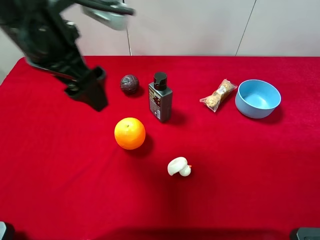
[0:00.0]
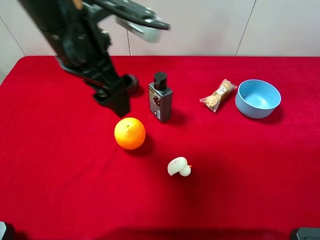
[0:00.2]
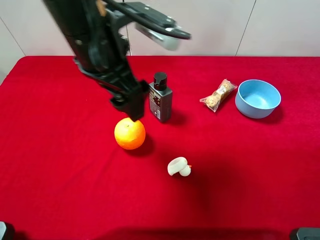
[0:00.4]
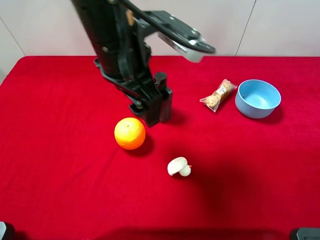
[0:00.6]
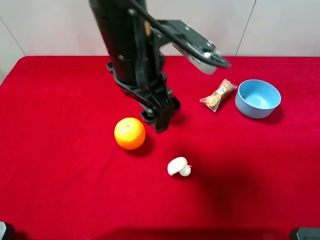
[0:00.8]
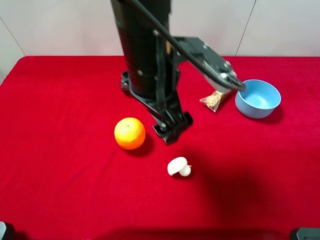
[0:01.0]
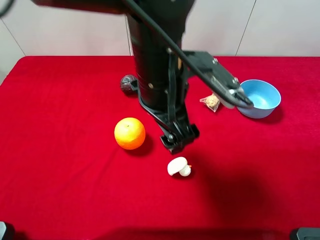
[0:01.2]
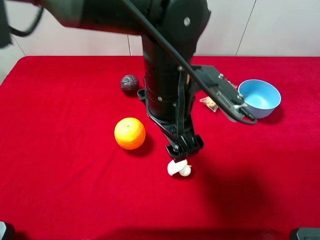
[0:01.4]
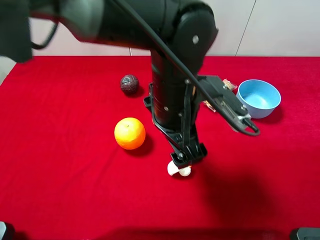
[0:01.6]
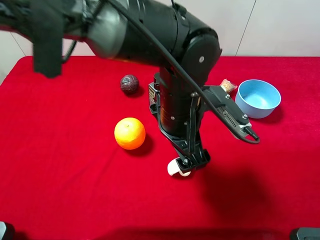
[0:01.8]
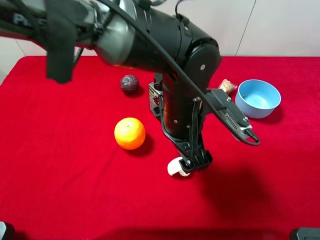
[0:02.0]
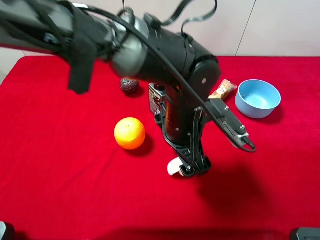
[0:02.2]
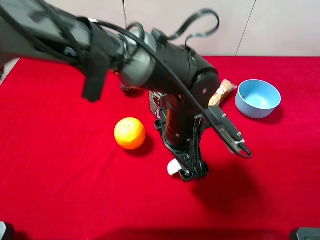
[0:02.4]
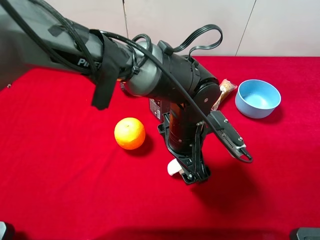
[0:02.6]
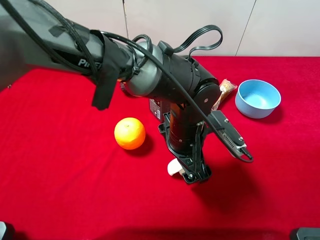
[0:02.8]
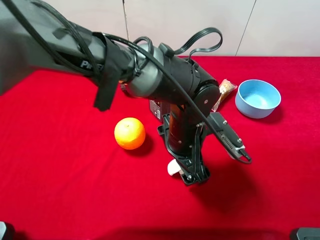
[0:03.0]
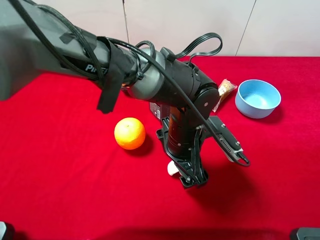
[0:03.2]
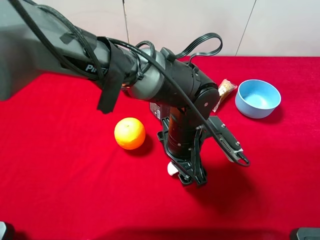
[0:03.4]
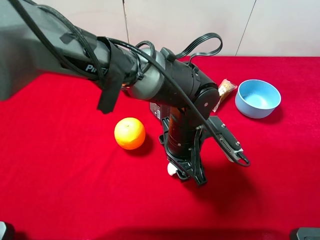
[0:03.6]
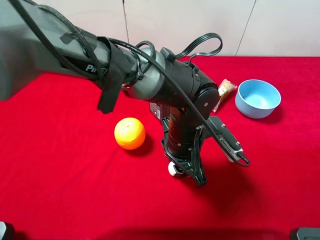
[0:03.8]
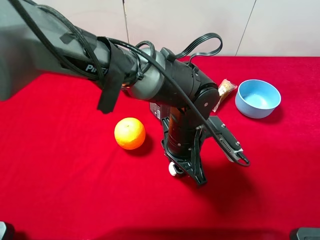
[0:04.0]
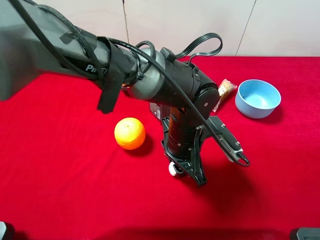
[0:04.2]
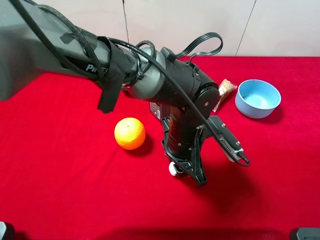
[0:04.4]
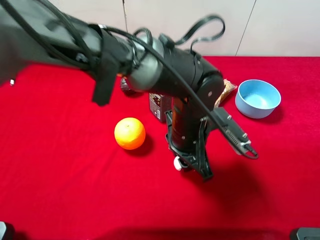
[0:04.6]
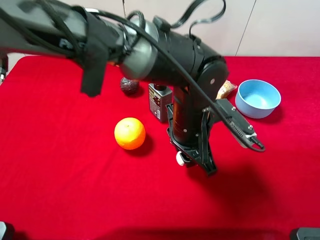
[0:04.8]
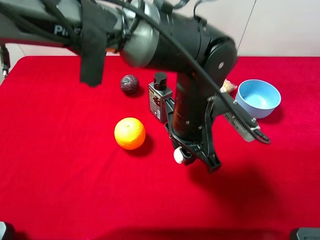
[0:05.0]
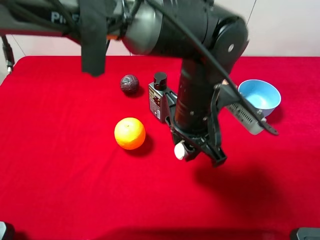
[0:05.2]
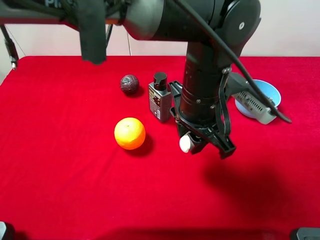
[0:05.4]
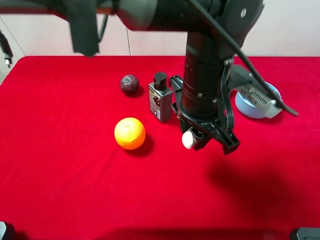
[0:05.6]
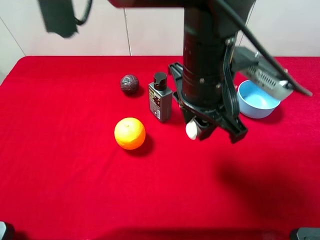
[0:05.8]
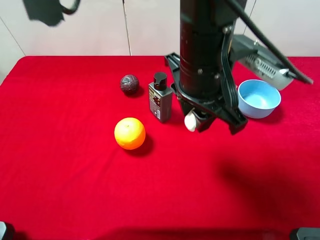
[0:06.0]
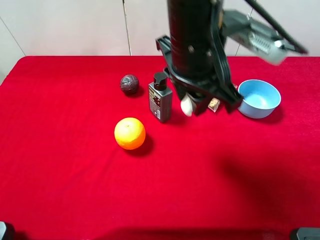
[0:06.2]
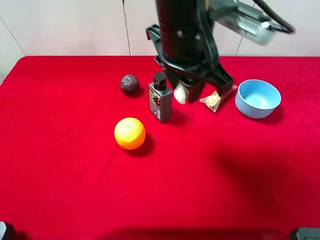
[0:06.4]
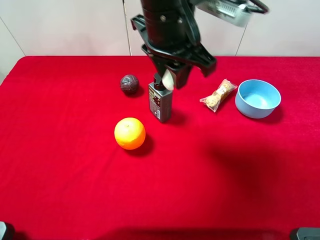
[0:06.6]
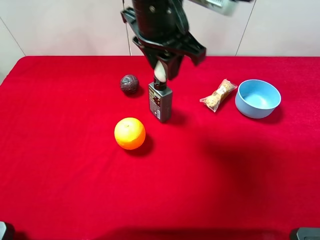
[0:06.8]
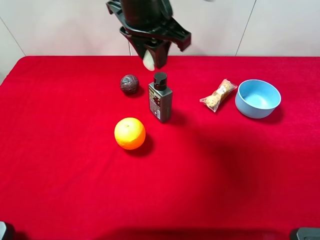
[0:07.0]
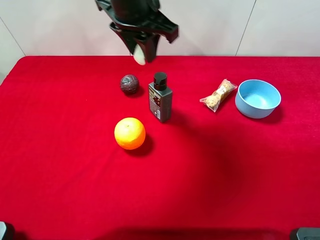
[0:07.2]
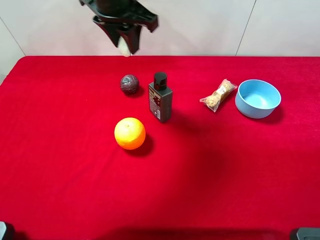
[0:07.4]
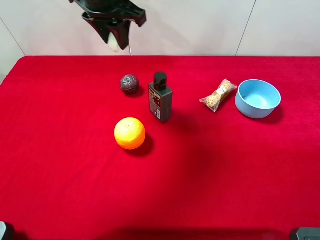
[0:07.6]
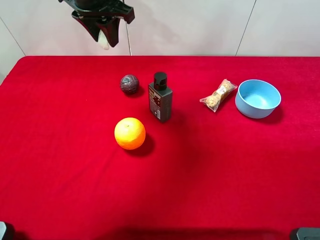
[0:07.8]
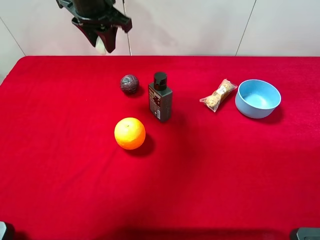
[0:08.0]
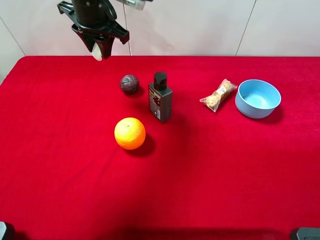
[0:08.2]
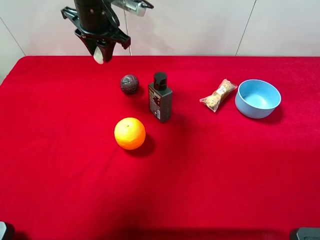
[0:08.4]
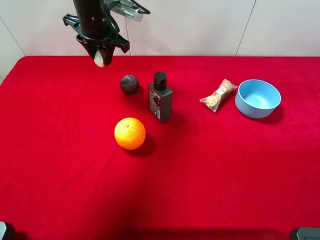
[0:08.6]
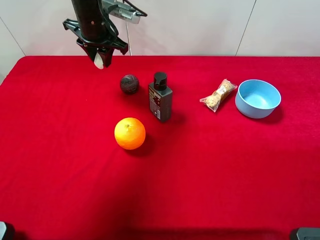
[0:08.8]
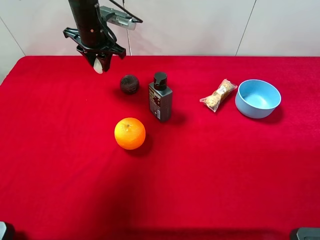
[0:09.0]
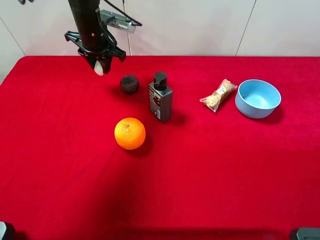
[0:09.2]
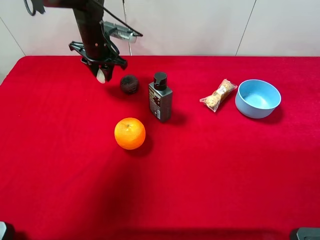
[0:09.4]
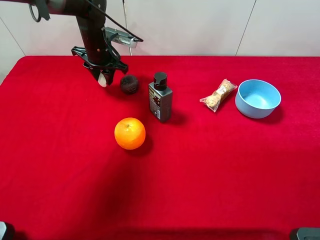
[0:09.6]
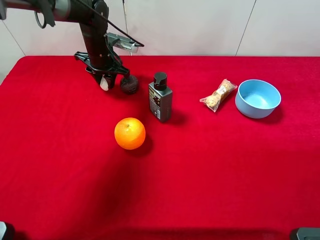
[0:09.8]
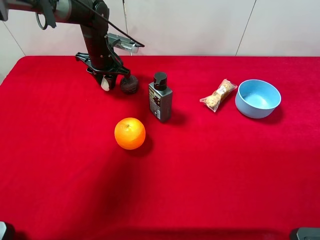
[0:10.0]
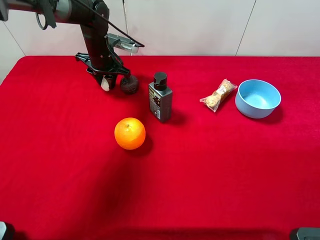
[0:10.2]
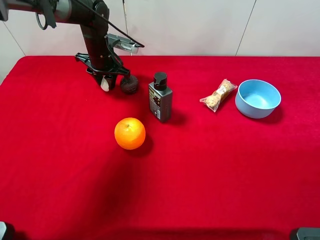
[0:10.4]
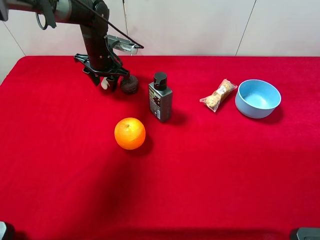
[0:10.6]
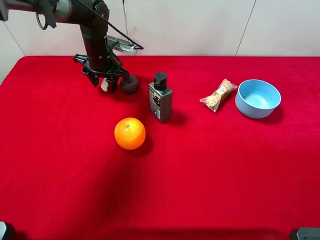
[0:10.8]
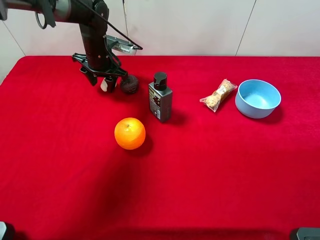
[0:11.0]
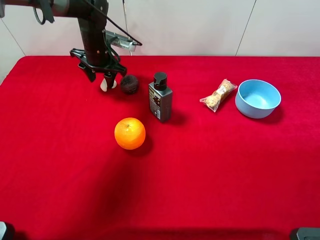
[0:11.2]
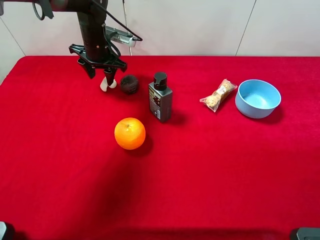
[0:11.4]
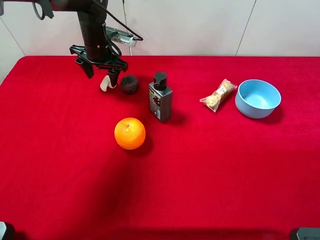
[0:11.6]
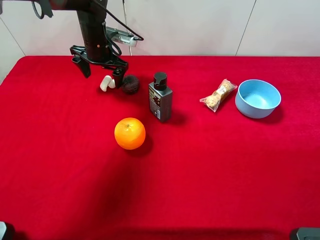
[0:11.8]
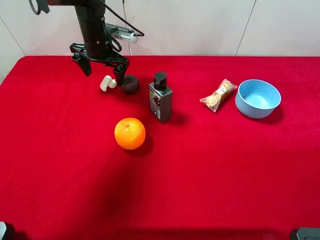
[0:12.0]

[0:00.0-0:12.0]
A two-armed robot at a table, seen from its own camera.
Task of the whole recording: the gripper move the object.
Step, 0:00.0 to 0:03.8: Grasp the white duck with the left gripper.
0:00.0 to 0:01.6: The left gripper goes approximately 20 cm to the right and downward.
0:01.6 to 0:03.0: The left gripper travels downward by some 10 cm.
0:03.0 to 0:04.4: The left gripper closes.
0:04.4 to 0:06.0: The left gripper shifts some 15 cm upward.
0:06.0 to 0:07.6: The left gripper goes roughly 20 cm to the left and forward.
0:07.6 to 0:09.0: The left gripper shifts roughly 15 cm downward, forward and to the left.
0:09.0 to 0:10.4: The left gripper heads downward, covering some 5 cm.
0:10.4 to 0:12.0: The left gripper opens its fingers.

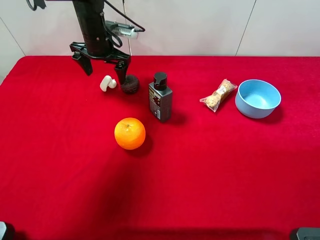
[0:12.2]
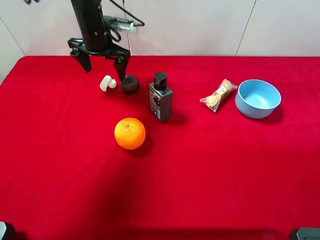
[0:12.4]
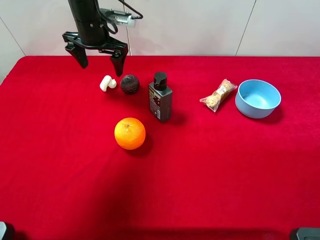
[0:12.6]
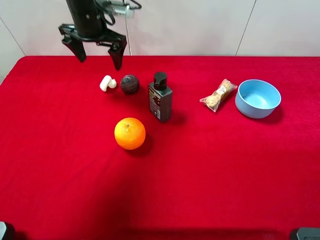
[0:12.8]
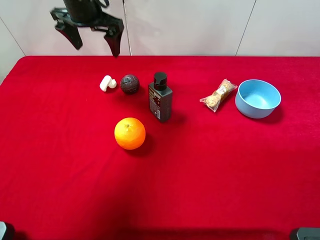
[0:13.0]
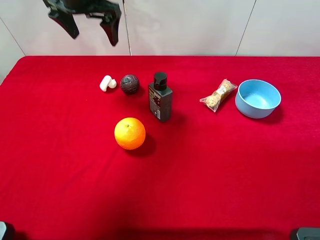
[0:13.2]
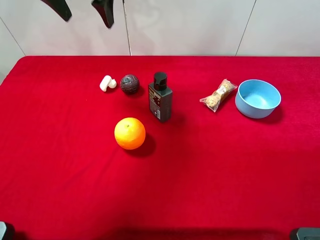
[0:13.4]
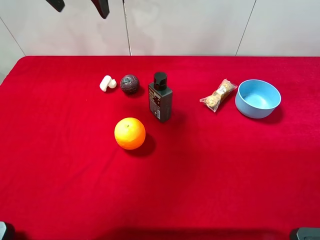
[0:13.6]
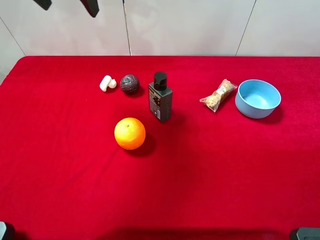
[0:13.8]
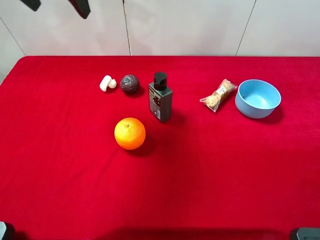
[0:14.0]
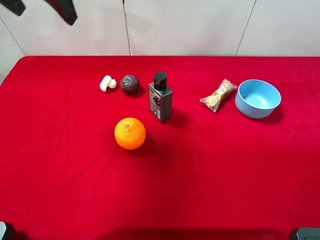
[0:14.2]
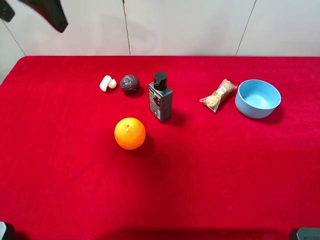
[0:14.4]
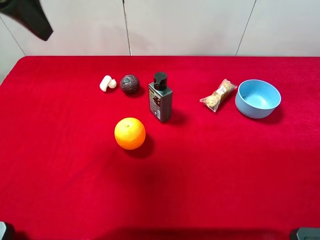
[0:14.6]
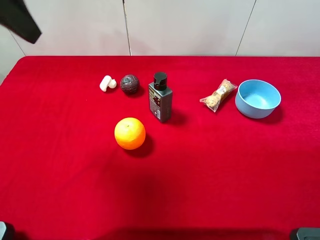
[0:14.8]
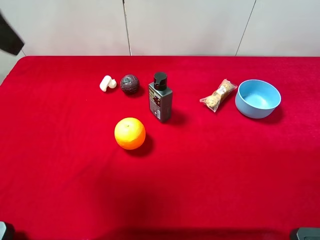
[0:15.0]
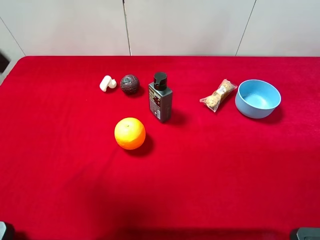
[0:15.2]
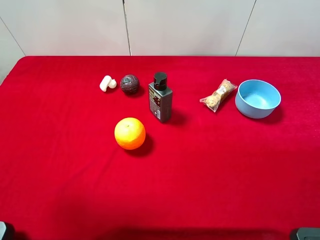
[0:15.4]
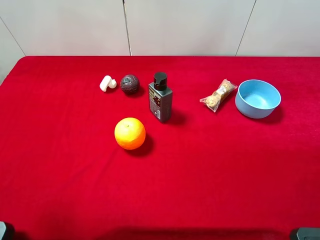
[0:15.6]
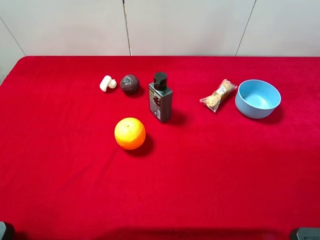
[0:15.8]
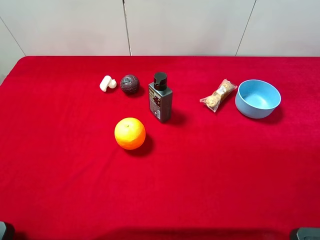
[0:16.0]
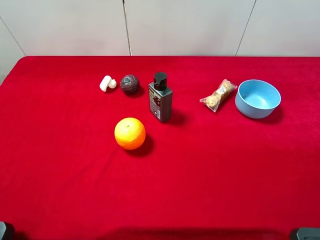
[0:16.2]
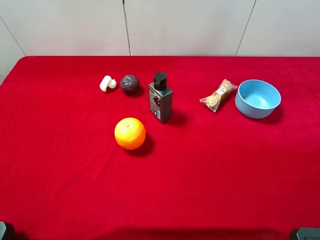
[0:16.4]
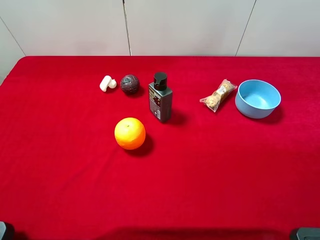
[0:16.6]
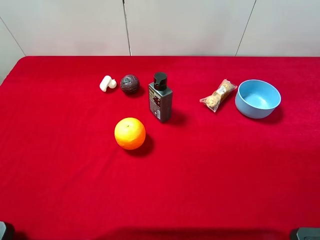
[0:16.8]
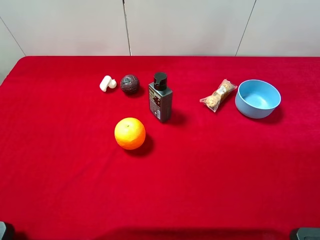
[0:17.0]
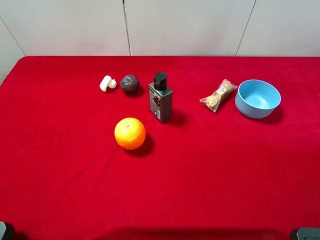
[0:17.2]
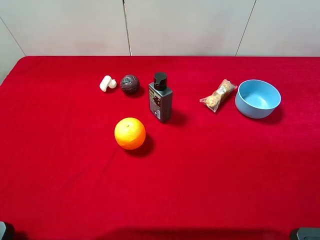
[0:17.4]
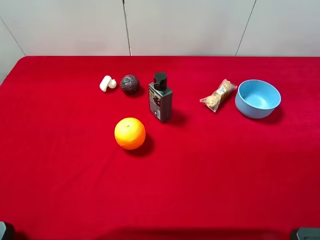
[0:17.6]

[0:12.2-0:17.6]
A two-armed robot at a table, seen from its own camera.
Task of the whole recording: the gripper move the object.
0:12.2 to 0:13.6: The left gripper shifts about 20 cm upward.
0:13.6 to 0:15.0: The left gripper goes approximately 20 cm backward.
0:15.0 to 0:16.2: The left gripper moves backward and downward, some 20 cm.

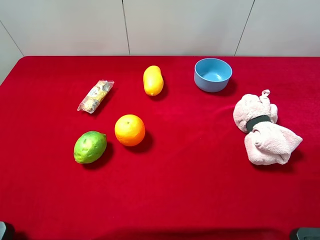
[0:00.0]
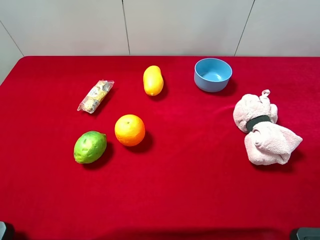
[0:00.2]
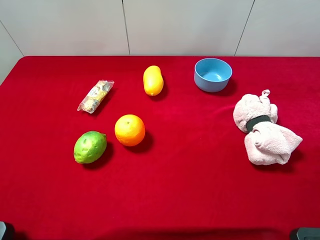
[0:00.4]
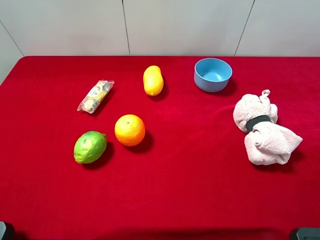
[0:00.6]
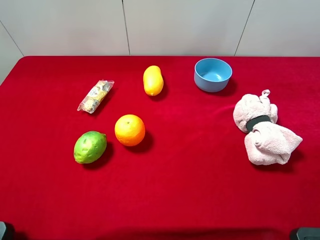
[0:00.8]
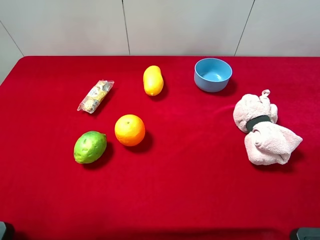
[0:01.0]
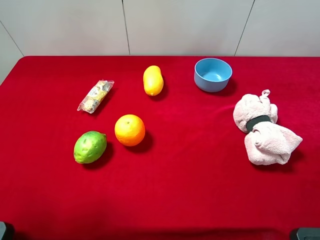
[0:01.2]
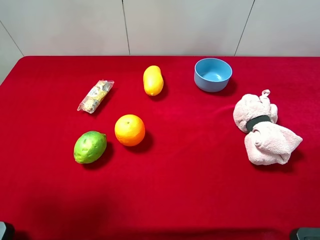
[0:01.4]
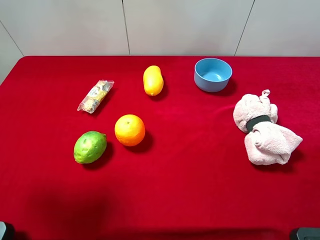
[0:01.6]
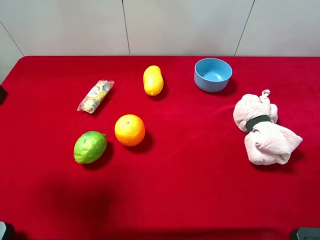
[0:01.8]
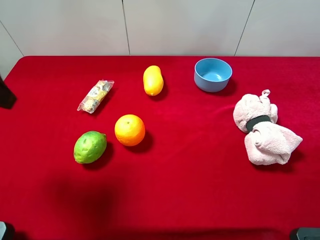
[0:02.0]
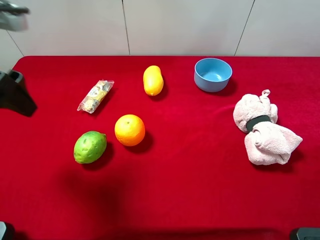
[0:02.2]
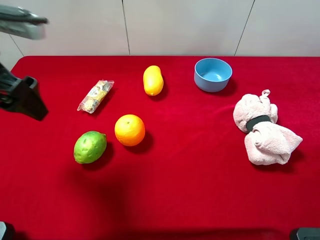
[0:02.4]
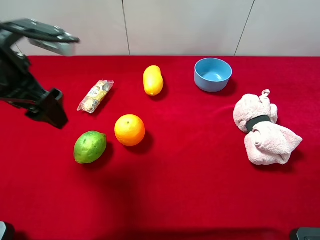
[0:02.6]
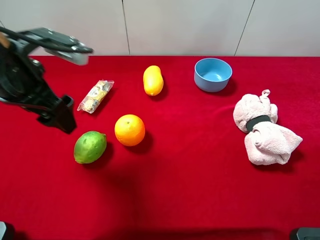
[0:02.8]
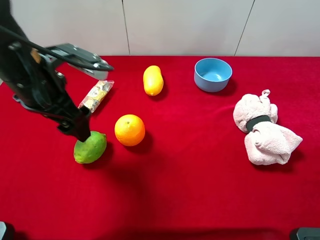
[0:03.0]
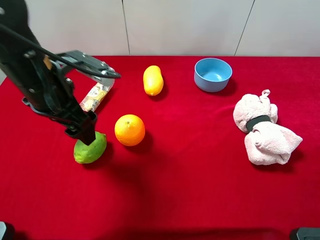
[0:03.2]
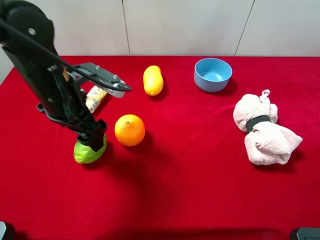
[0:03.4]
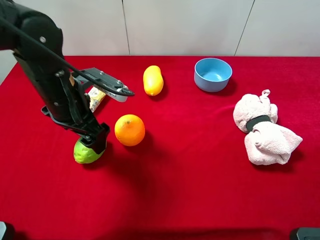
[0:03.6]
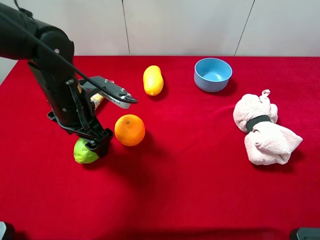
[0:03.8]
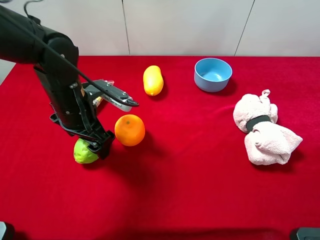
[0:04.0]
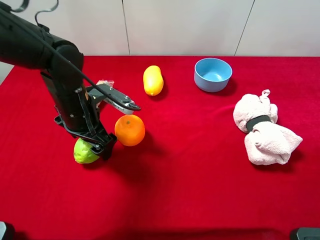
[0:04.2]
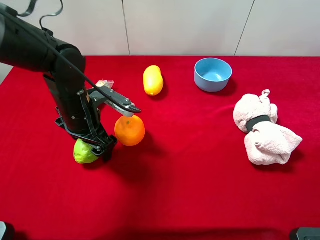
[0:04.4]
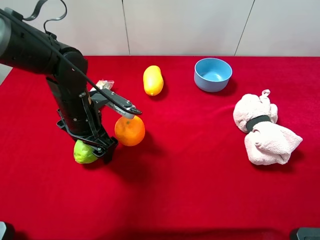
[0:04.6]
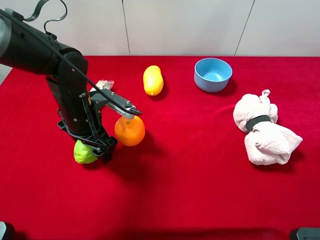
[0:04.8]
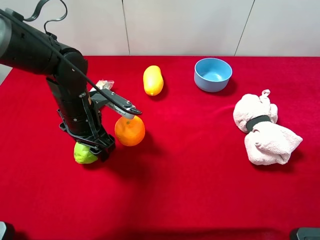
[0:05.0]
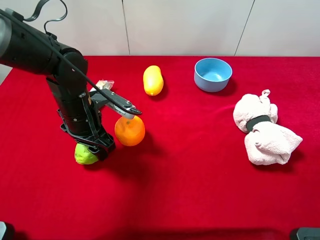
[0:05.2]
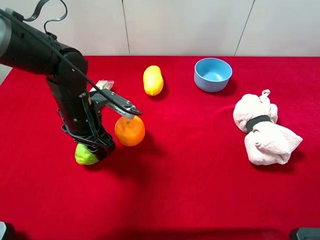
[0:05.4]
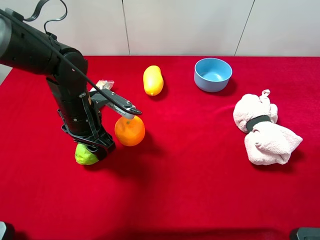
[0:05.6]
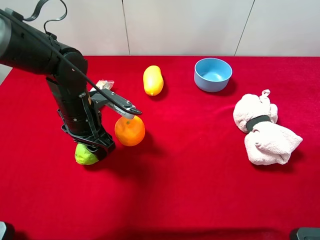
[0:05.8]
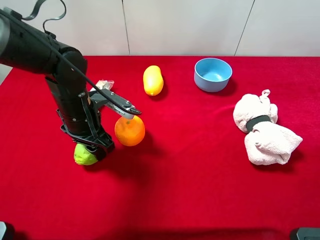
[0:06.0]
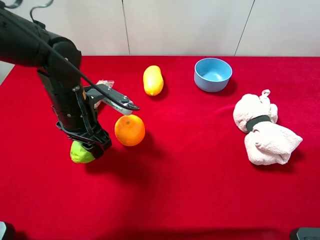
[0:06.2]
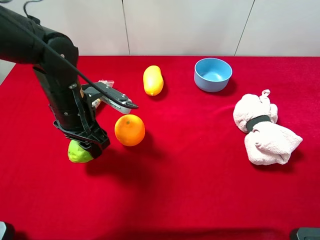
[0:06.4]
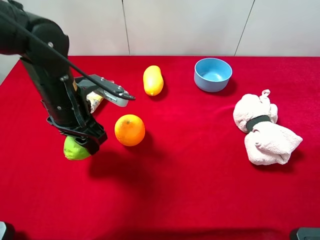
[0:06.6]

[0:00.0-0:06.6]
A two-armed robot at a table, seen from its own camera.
Task of the whole recording: the gripper move the object.
Step, 0:00.0 to 0:05.6: Grasp the green lemon with the left gripper.
0:01.6 to 0:03.2: The left gripper shifts approximately 20 cm to the right, downward and forward.
0:03.2 to 0:05.0: The left gripper is displaced downward by some 10 cm, and closes its fingers.
0:05.0 to 0:06.6: The left gripper closes.
